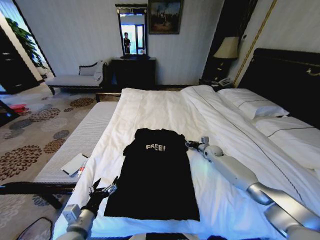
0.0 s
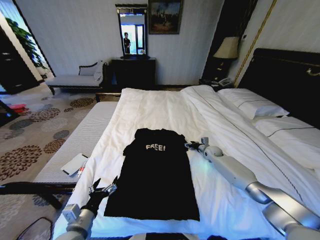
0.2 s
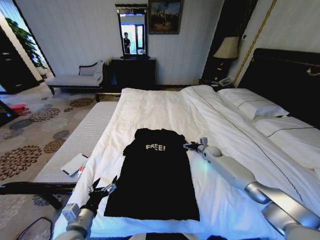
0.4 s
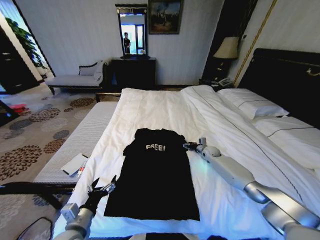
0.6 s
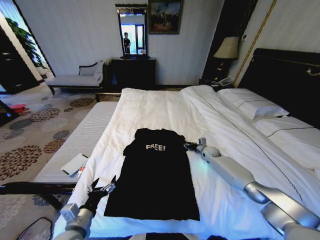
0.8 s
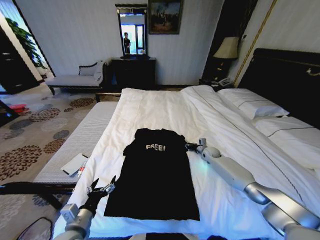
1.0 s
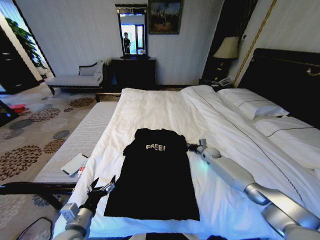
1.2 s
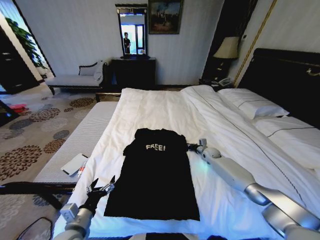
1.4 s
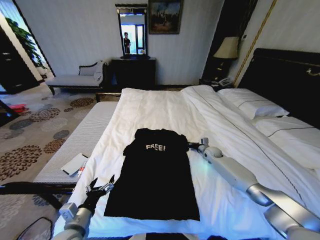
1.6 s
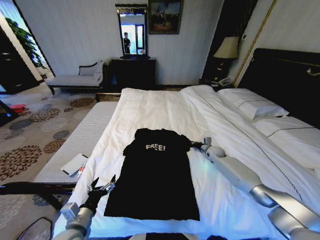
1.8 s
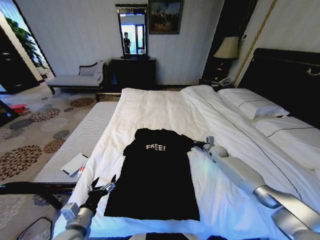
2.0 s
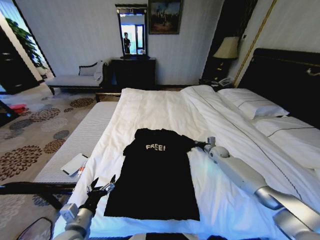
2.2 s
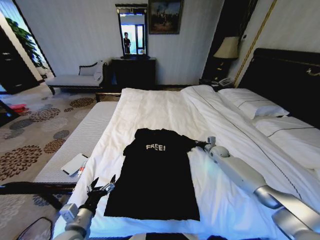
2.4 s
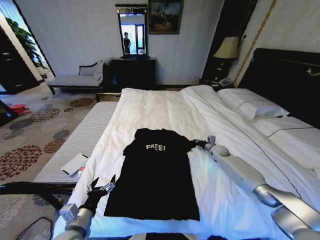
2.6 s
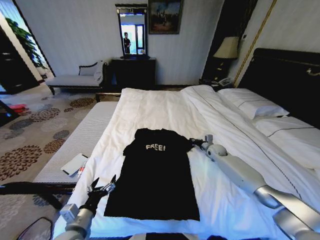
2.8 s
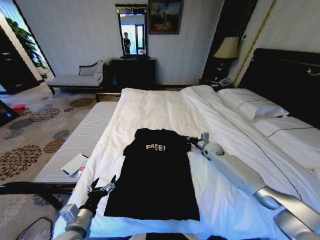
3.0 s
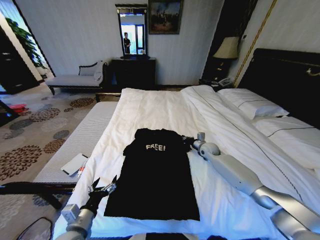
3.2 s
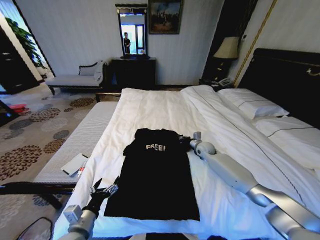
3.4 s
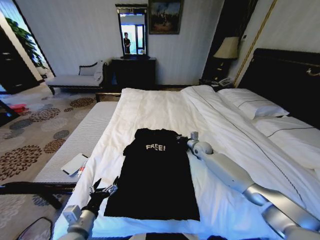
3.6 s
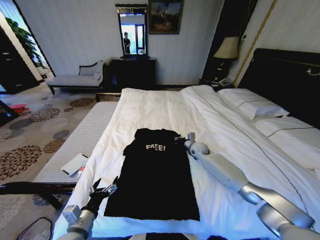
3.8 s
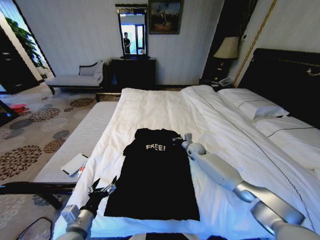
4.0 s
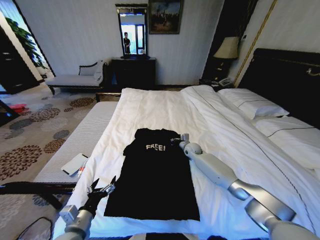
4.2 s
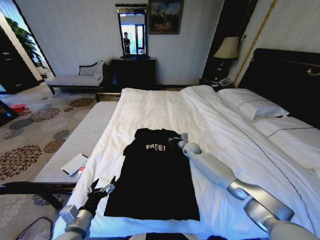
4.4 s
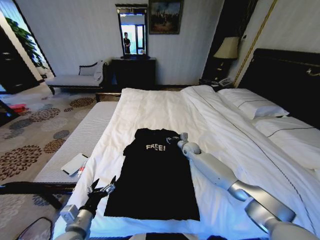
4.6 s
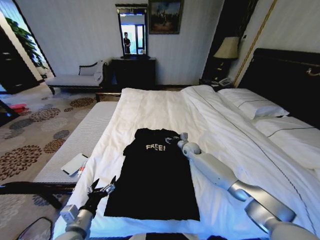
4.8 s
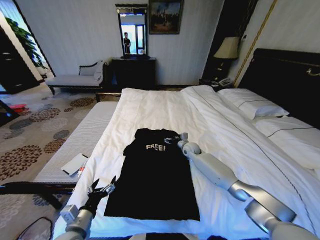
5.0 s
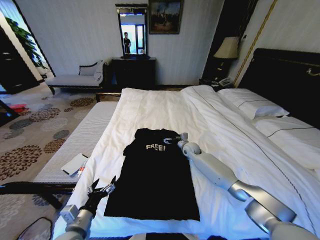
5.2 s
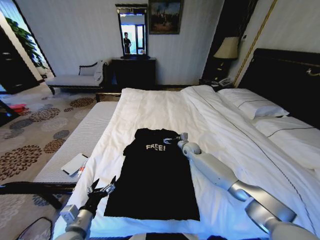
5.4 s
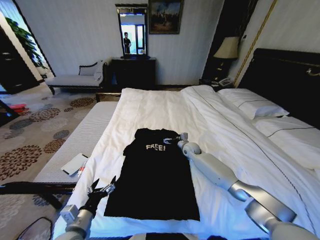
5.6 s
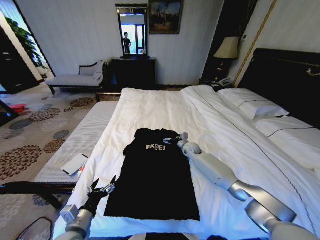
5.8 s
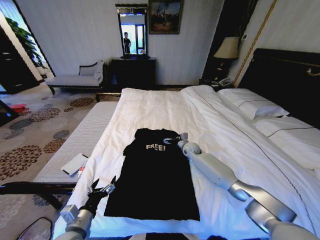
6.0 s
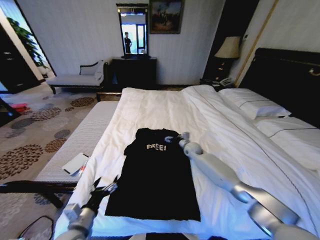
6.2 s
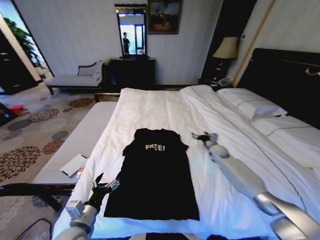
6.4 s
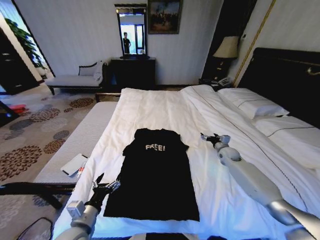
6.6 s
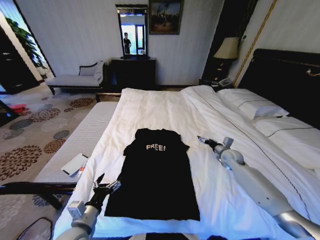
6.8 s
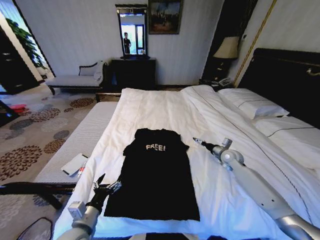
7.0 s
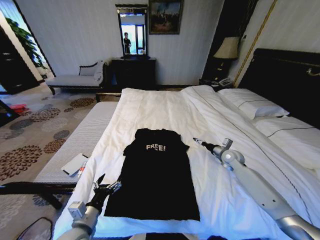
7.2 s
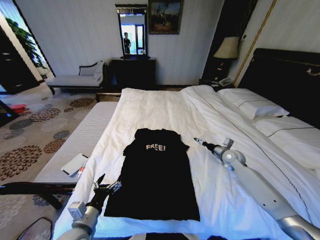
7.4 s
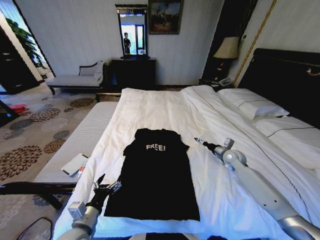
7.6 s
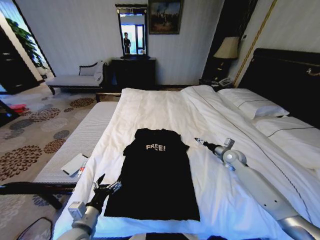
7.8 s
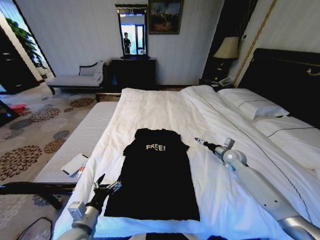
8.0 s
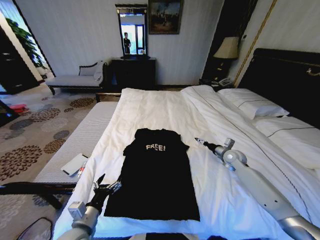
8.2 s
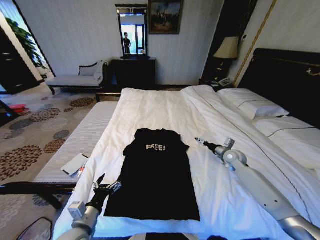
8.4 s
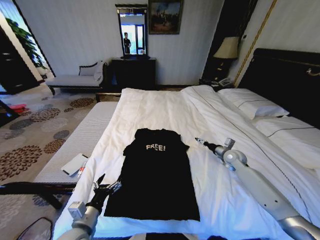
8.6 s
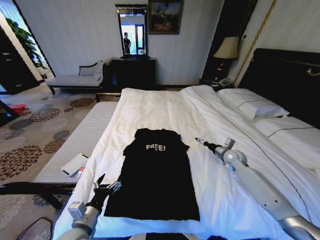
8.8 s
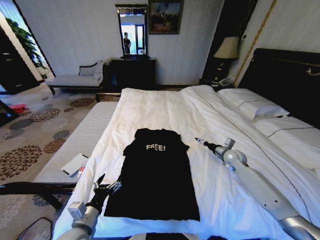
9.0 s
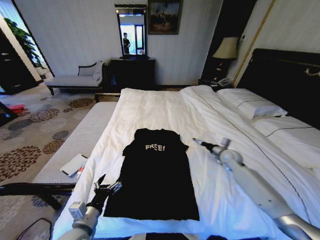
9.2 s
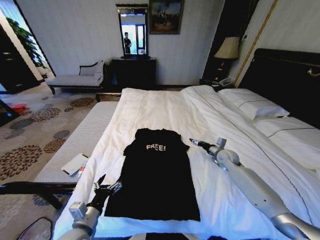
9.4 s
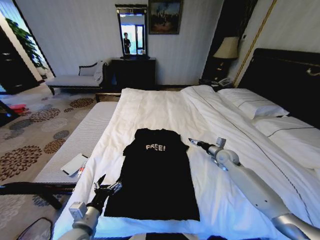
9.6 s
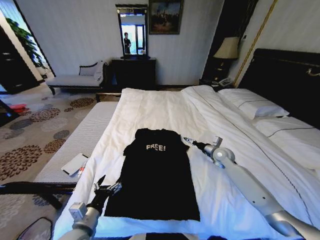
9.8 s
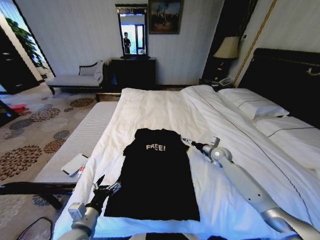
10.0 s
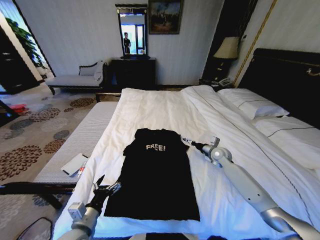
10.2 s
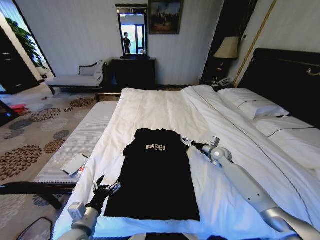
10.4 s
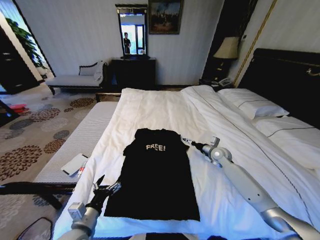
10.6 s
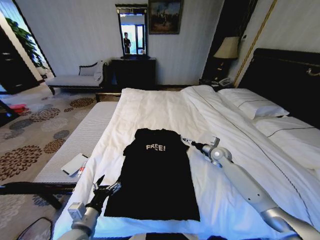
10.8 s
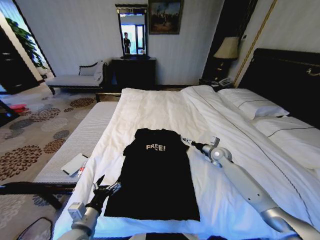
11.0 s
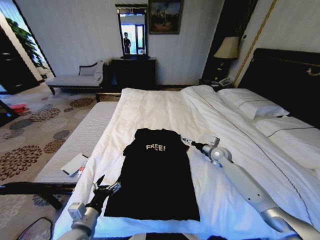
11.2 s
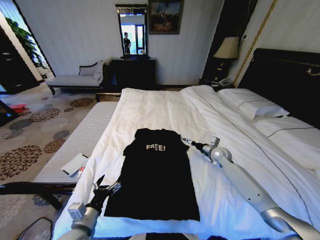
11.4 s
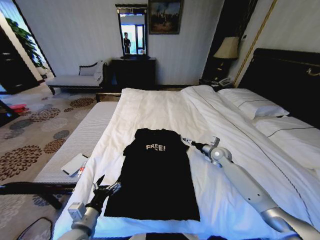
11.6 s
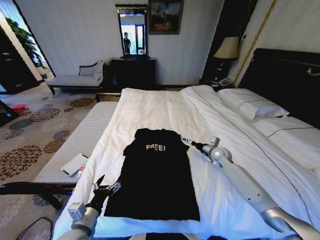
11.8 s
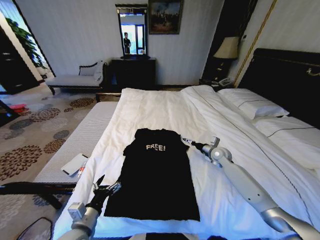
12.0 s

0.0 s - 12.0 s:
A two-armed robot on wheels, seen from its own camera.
Task of the whole recording: Fold the clothes on the bed.
0.0 s - 1.6 s: The right gripper closes its fingers.
1.6 s - 3.0 s: The right gripper shifts by about 5 cm.
3.0 s - 4.4 s: The right gripper is displaced to the left by roughly 10 cm.
4.4 s - 6.0 s: The right gripper opens its fingers.
6.0 s - 7.6 s: The right gripper is displaced to the right and backward by roughly 20 cm.
7.6 s - 9.0 s: Both grippers stay about where they are.
9.0 s - 10.4 s: The right gripper moves to the left, roughly 5 cm.
10.4 s - 12.0 s: Both grippers stay about where they are.

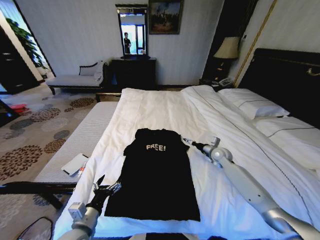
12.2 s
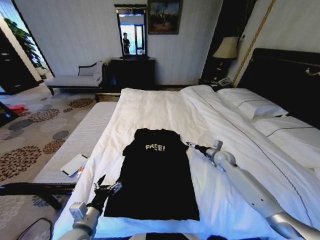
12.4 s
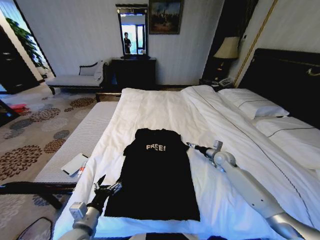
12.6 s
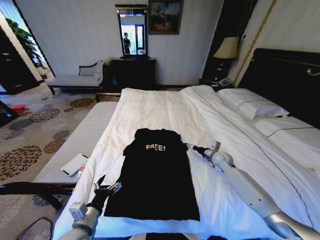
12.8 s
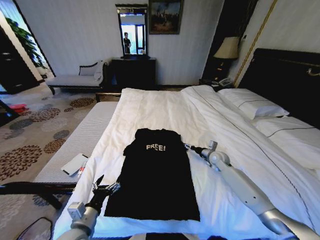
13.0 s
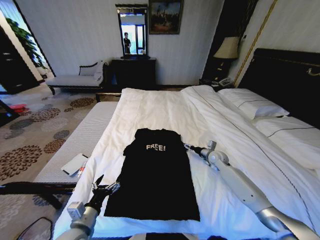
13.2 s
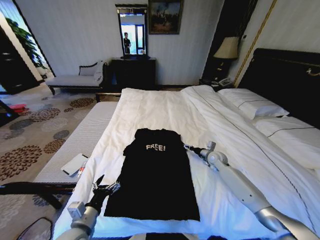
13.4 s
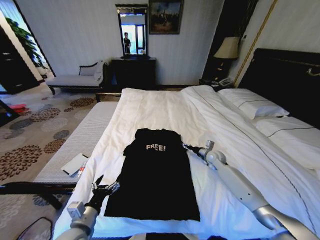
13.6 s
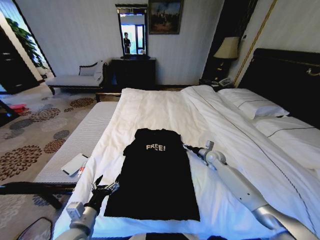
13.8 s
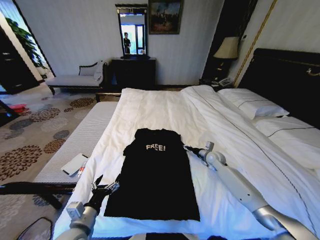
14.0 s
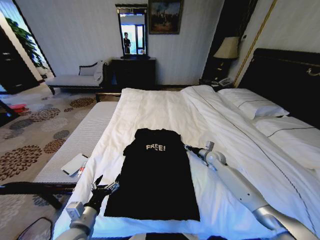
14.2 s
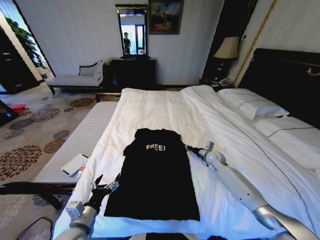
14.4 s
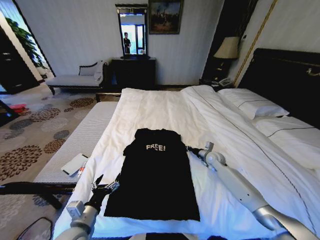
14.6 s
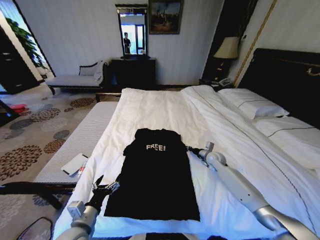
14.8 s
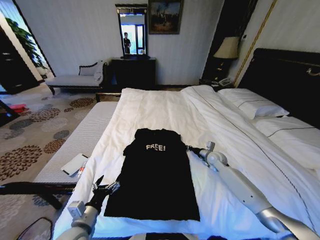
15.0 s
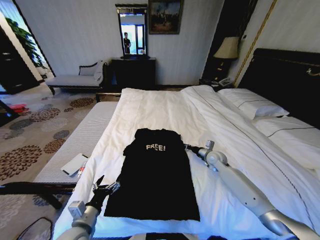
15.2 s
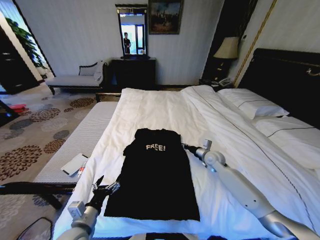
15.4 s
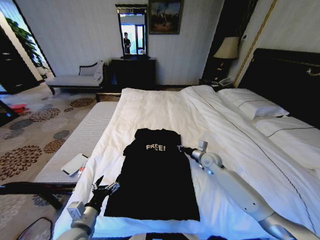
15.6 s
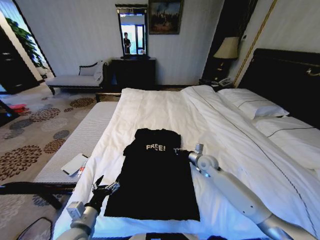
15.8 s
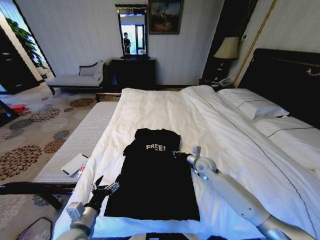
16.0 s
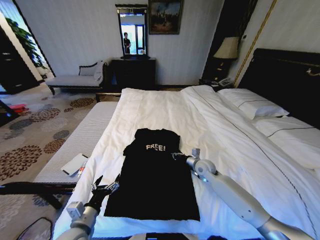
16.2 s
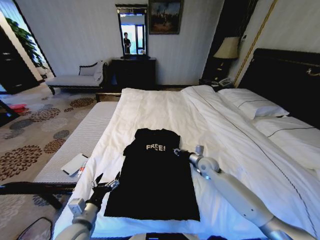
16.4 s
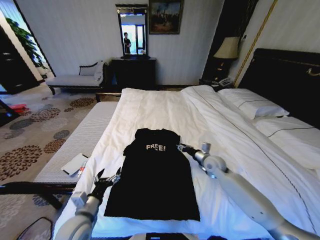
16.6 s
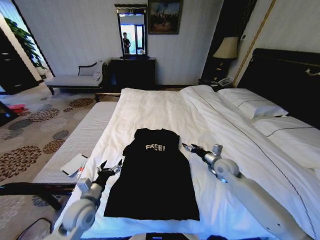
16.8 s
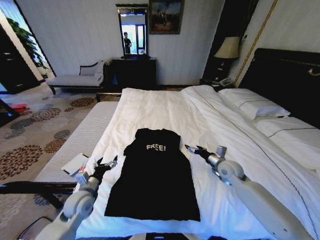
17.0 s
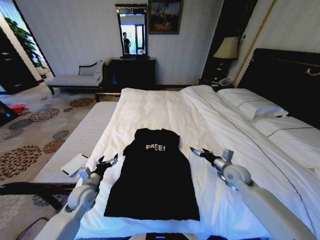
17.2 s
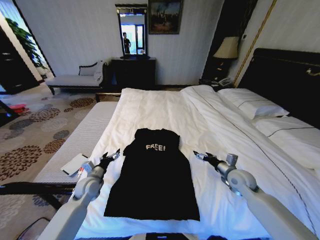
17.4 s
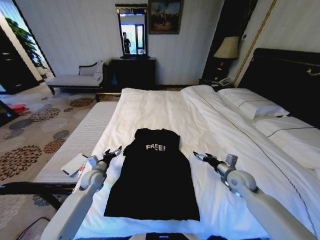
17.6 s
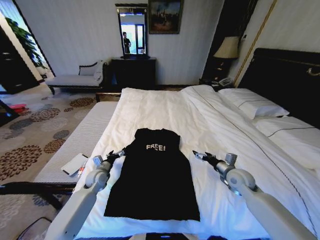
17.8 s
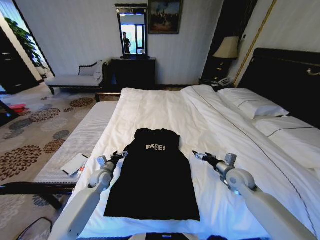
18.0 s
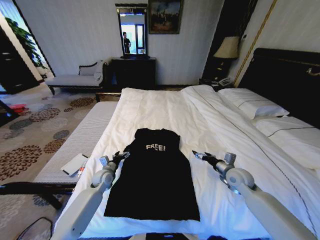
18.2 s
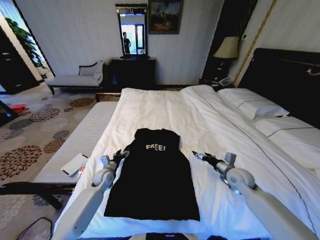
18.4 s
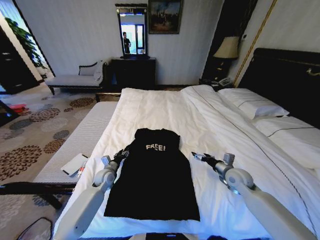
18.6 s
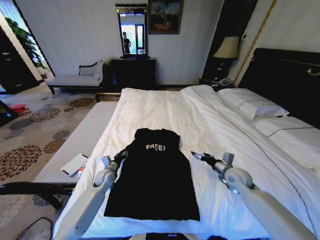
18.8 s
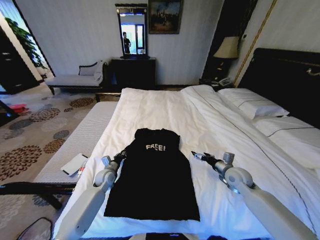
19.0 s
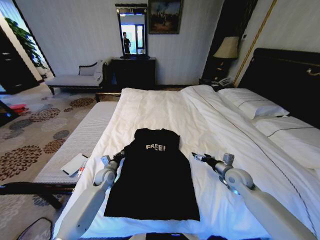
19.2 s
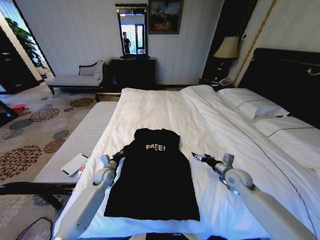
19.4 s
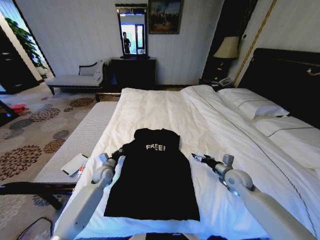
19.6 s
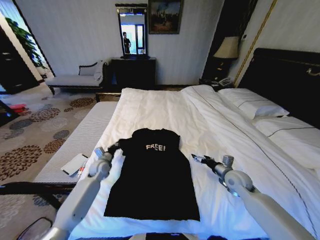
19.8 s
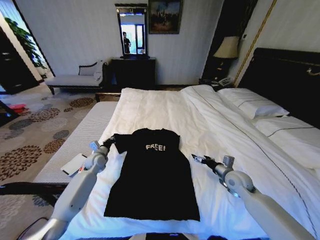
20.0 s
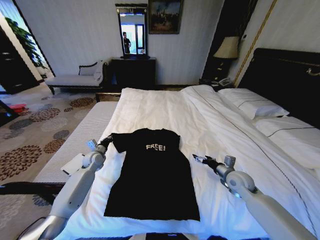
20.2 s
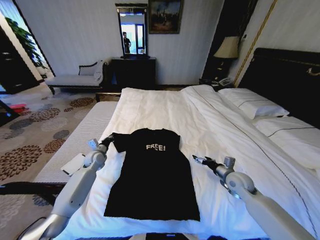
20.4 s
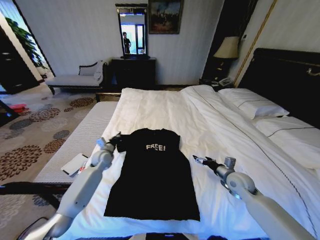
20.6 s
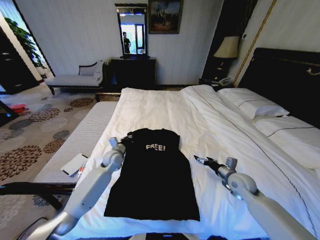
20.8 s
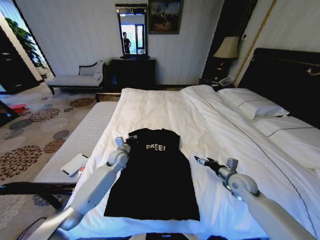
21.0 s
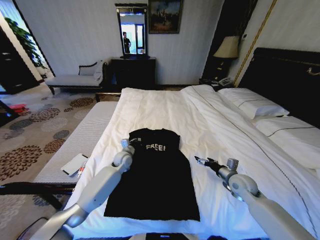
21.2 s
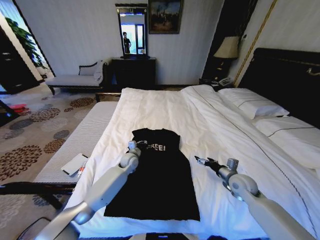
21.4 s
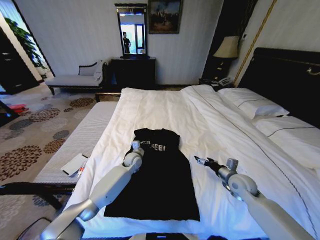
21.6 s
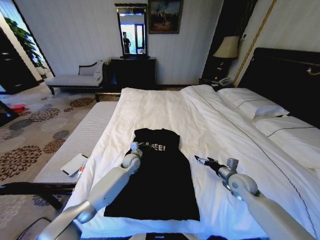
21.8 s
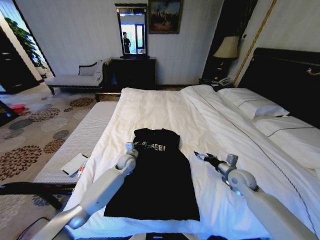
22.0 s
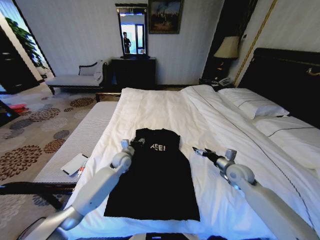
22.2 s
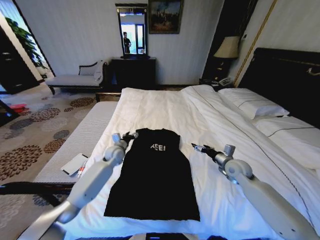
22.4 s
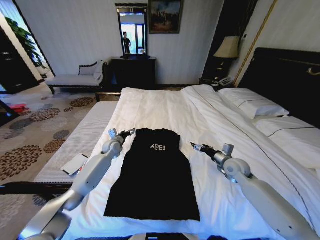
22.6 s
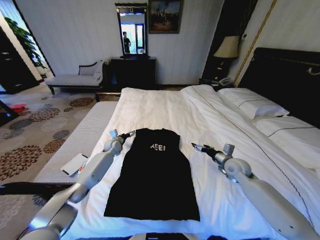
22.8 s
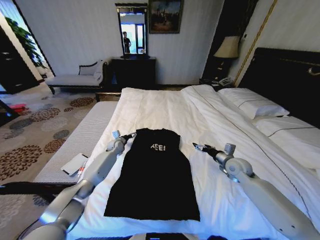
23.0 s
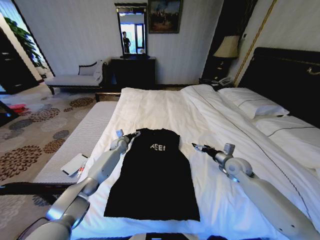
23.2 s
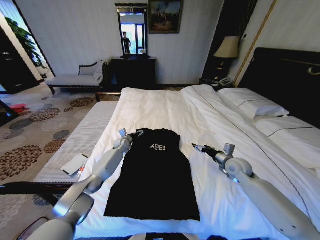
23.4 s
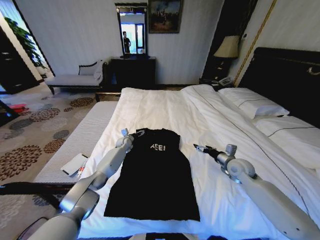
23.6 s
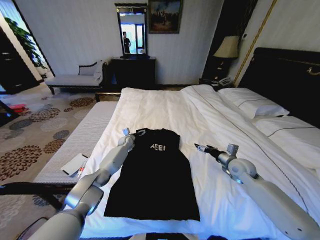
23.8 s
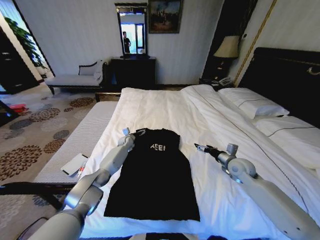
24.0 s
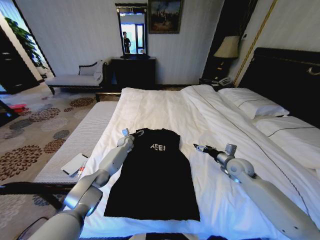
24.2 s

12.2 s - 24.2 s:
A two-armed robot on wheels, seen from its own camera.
Task of the whole recording: Fold the clothes on the bed.
12.2 s - 13.8 s: The grippers stay close to where they were, moving slightly.
13.8 s - 15.2 s: The right gripper closes up.
15.2 s - 16.6 s: The right gripper moves some 5 cm, and opens up.
16.6 s - 18.2 s: The right gripper moves to the right and backward, some 10 cm, and opens up. The left gripper heads forward and downward, covering about 25 cm.
18.2 s - 19.8 s: The left gripper ends up some 5 cm from where it was, and closes up.
19.8 s - 21.2 s: The left gripper moves to the right, roughly 15 cm.
21.2 s - 22.6 s: The left gripper is displaced to the left and forward by roughly 10 cm, and opens. Meanwhile the right gripper goes about 5 cm forward.
22.6 s - 24.2 s: The left gripper travels forward and downward by roughly 10 cm.
